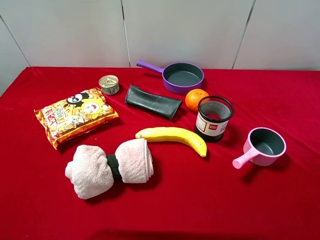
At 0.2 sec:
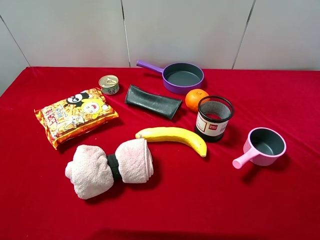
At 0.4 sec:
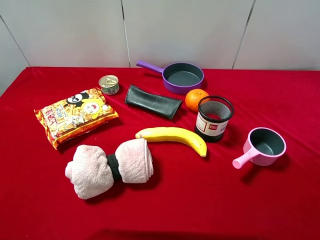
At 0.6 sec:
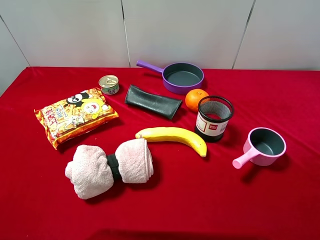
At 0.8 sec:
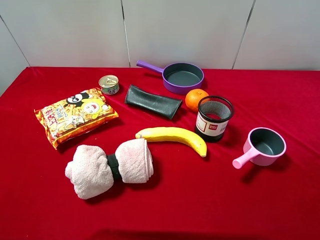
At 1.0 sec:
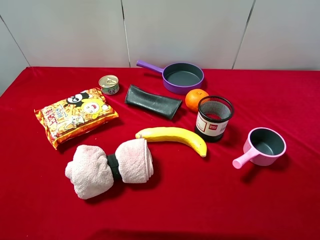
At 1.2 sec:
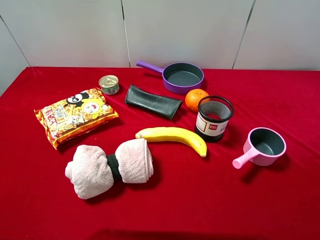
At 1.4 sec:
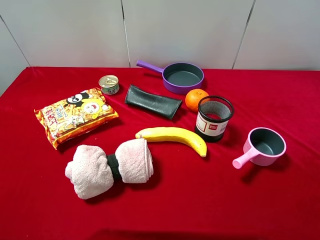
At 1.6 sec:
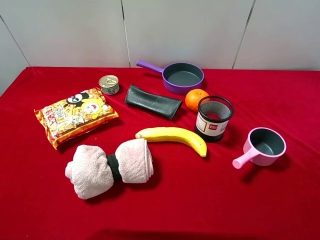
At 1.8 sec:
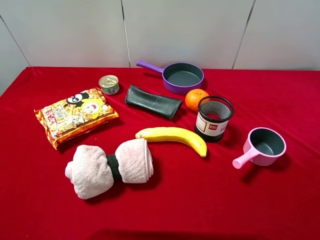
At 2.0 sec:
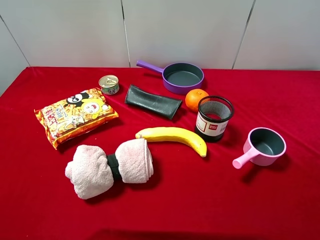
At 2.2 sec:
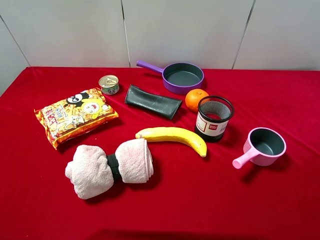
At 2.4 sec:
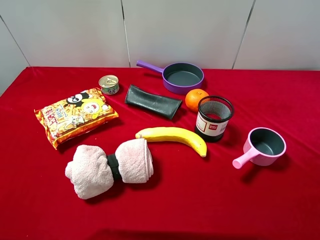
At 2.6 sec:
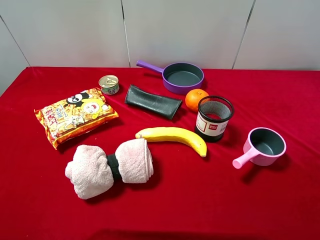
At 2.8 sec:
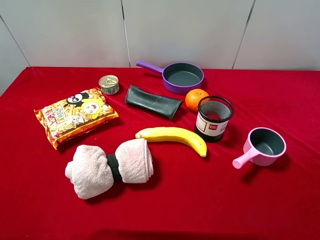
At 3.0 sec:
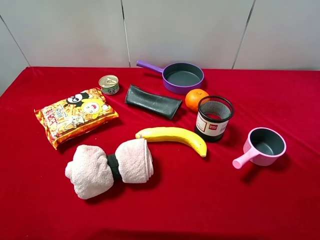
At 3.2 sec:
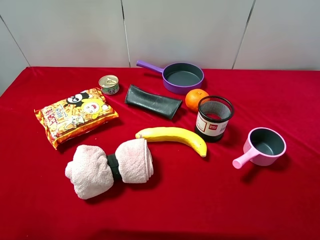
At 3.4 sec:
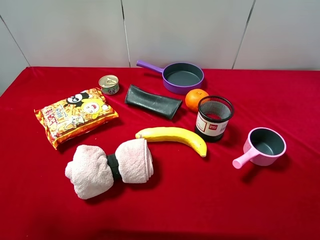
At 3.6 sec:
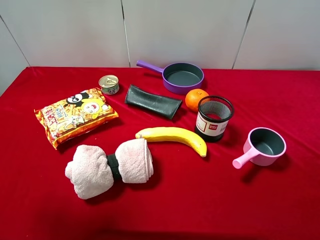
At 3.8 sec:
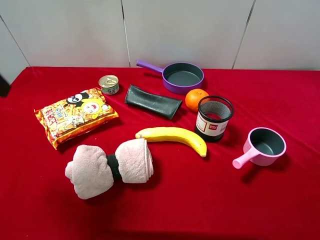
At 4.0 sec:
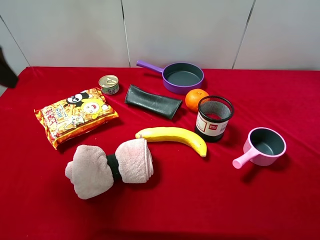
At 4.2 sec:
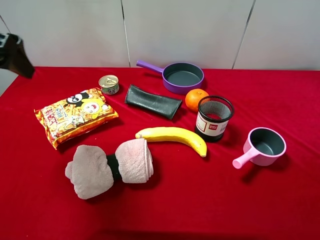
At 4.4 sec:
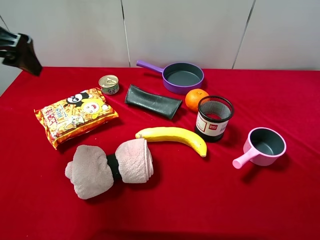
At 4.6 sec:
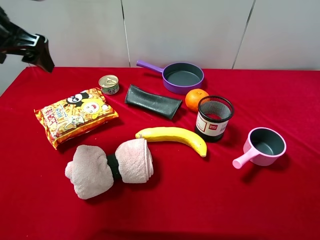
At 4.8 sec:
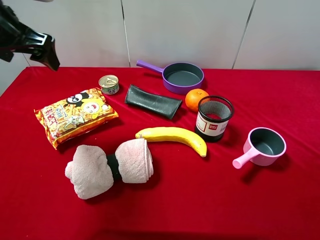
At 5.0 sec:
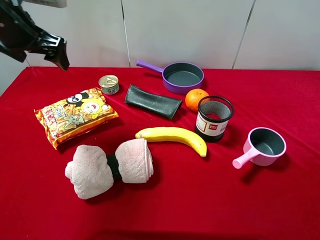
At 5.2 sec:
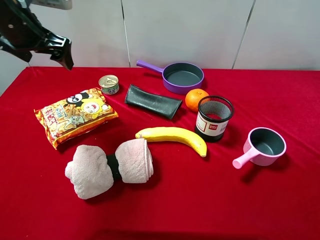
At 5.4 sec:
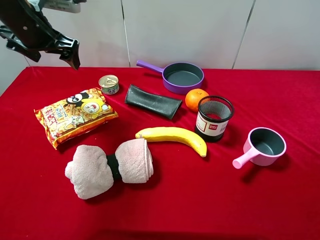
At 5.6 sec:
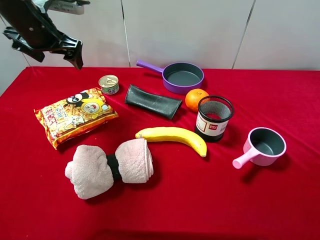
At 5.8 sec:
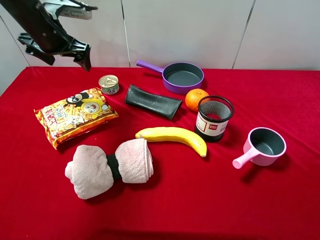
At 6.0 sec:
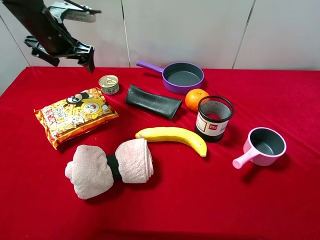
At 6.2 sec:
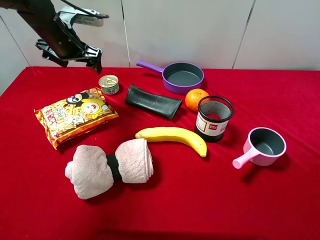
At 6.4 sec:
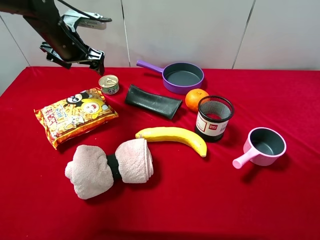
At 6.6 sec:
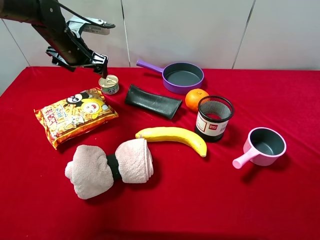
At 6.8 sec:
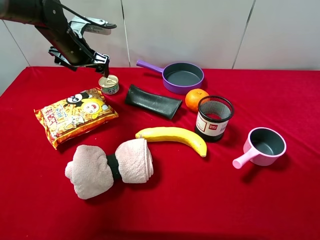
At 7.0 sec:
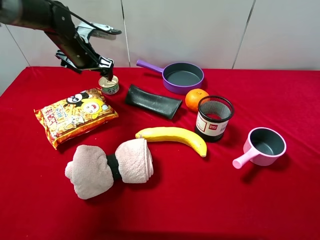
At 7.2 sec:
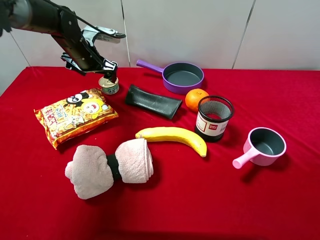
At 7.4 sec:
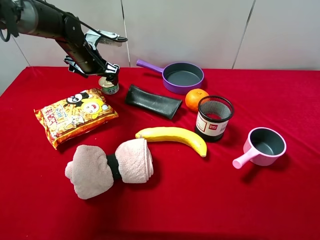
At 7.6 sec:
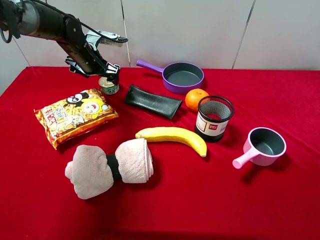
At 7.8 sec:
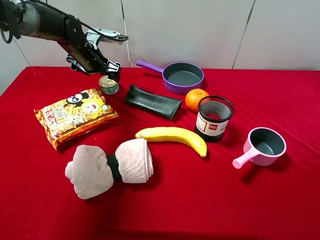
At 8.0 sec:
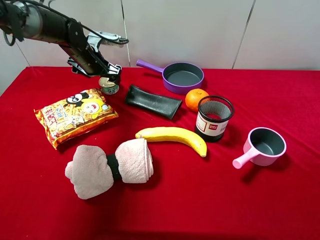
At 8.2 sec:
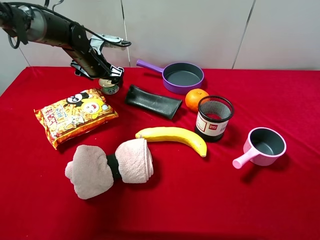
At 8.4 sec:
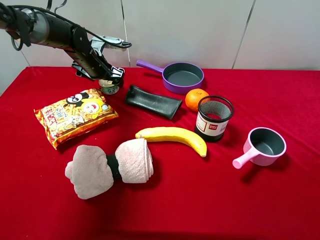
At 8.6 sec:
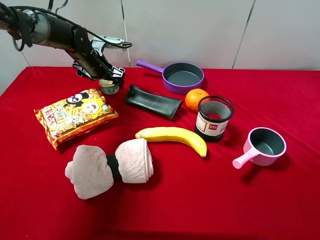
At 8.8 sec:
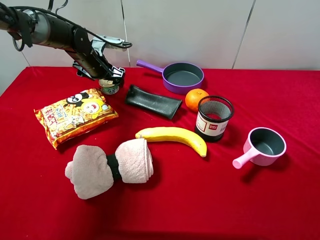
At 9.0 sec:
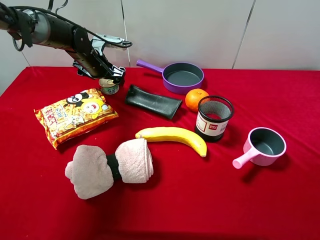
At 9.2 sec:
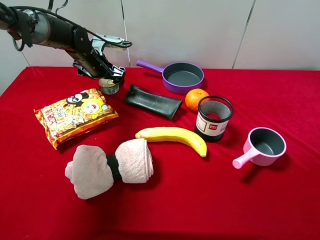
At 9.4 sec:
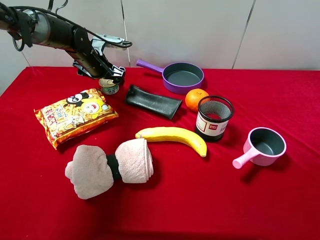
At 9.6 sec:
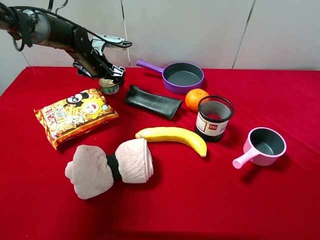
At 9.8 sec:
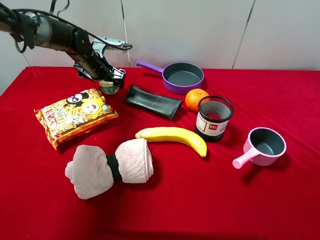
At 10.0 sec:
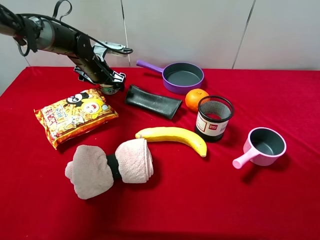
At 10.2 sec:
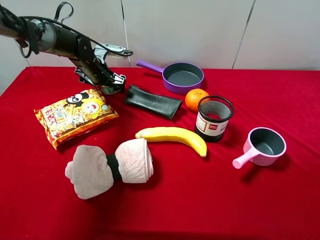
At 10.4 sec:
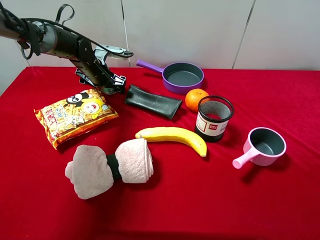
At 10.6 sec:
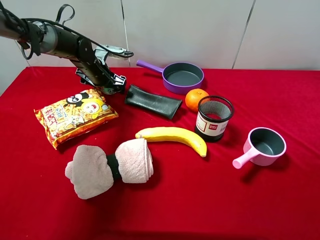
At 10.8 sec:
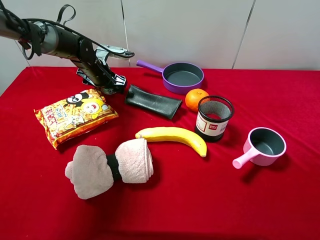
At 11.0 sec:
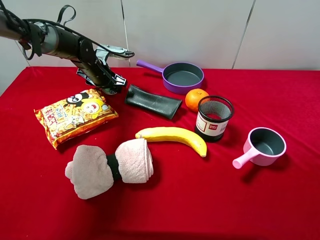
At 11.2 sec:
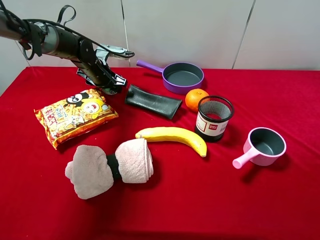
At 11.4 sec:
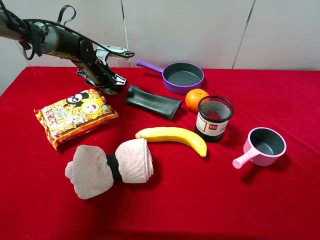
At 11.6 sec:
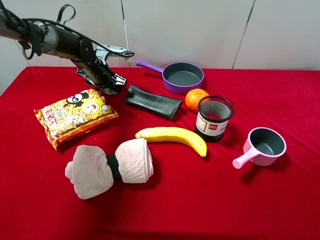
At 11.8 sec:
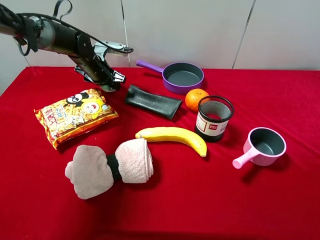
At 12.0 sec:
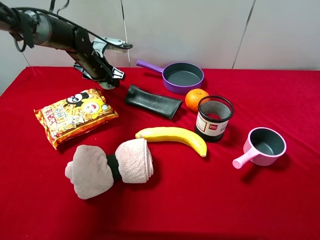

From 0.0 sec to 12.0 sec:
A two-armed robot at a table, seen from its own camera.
Task of the whole recording: pick up an item with a gripper and place it in a random container on the desktop.
From 0.0 sec to 1.6 sec: The two grippers keep their place.
From 3.0 sec to 4.4 sec: The left gripper moves forward, some 20 cm.
From 4.4 sec to 6.0 sec: The left gripper is displaced forward and downward by roughly 20 cm.
From 6.0 sec to 7.6 sec: The left gripper heads downward and forward, covering some 10 cm.
From 7.6 sec to 10.4 sec: The grippers move only a little.
From 10.4 sec to 12.0 sec: The left gripper closes up.

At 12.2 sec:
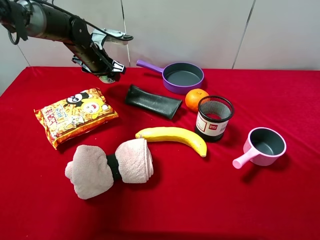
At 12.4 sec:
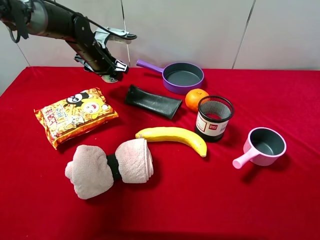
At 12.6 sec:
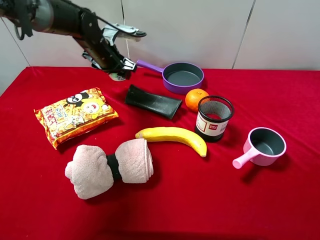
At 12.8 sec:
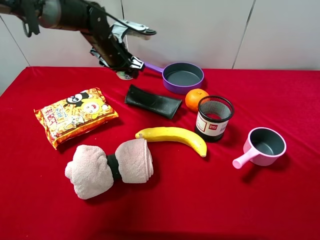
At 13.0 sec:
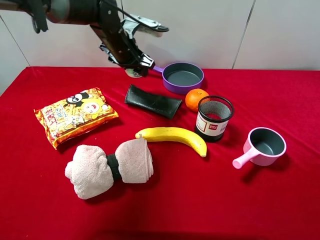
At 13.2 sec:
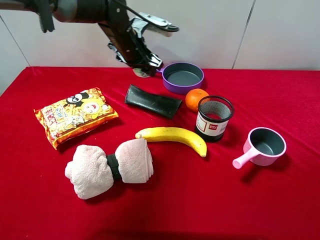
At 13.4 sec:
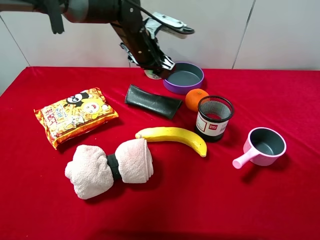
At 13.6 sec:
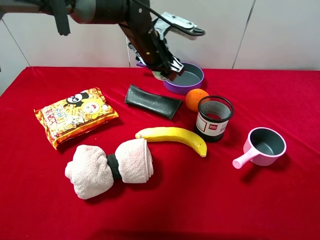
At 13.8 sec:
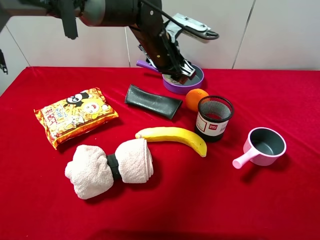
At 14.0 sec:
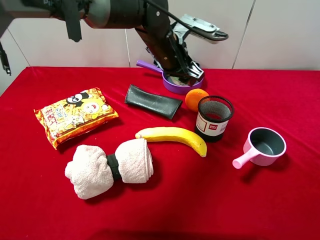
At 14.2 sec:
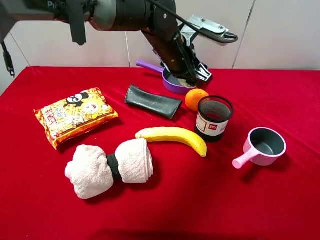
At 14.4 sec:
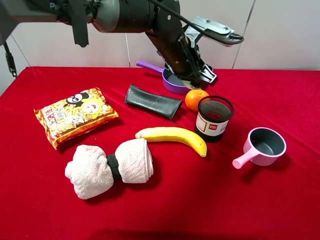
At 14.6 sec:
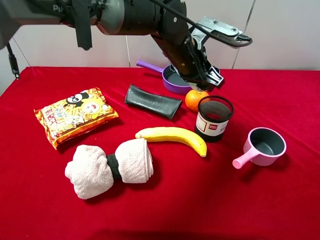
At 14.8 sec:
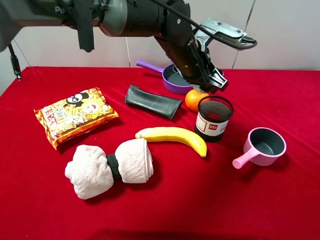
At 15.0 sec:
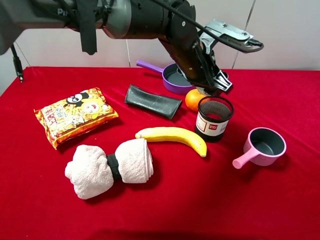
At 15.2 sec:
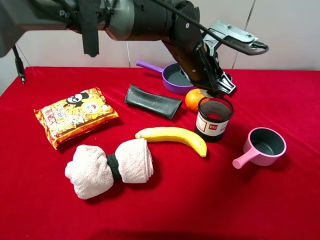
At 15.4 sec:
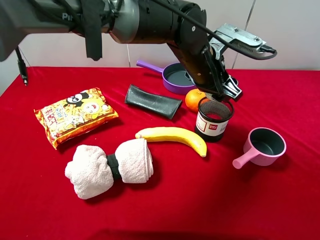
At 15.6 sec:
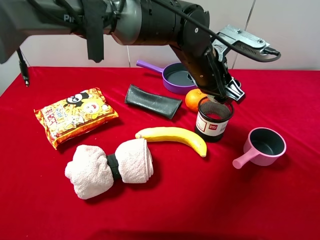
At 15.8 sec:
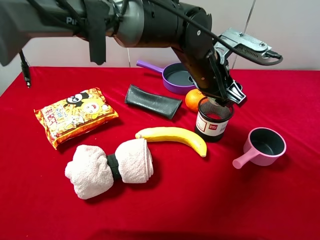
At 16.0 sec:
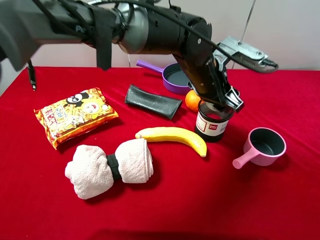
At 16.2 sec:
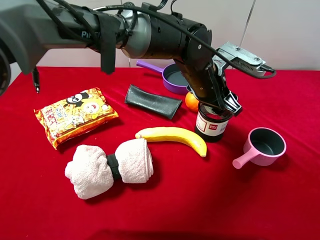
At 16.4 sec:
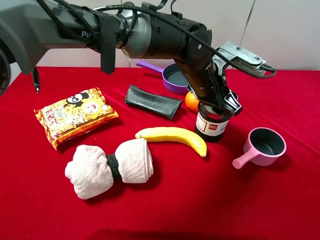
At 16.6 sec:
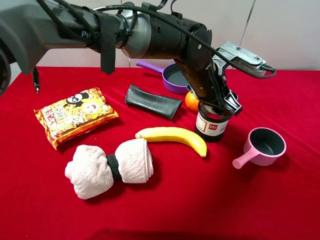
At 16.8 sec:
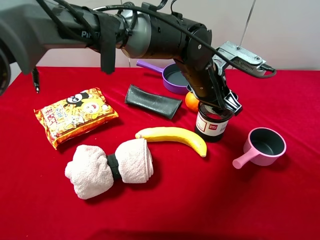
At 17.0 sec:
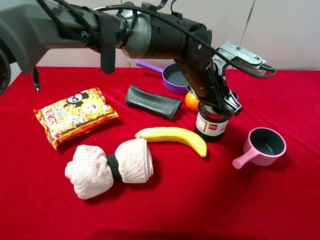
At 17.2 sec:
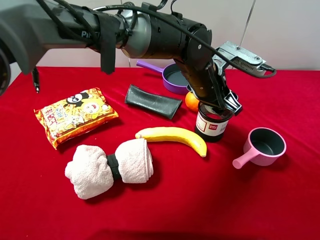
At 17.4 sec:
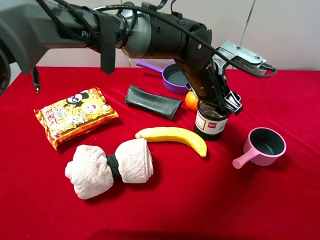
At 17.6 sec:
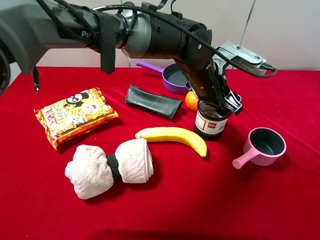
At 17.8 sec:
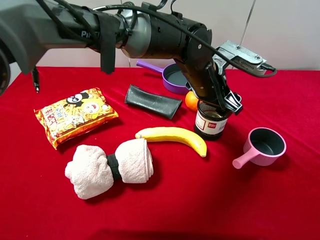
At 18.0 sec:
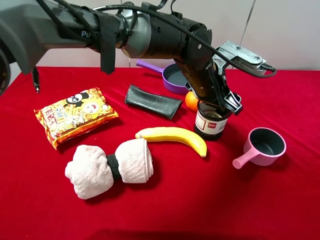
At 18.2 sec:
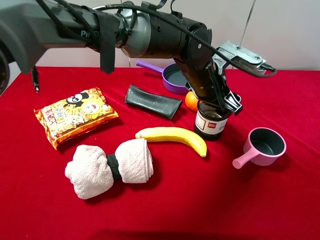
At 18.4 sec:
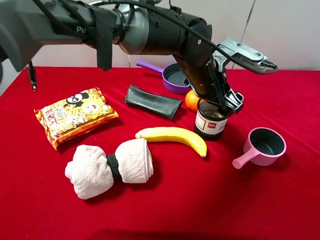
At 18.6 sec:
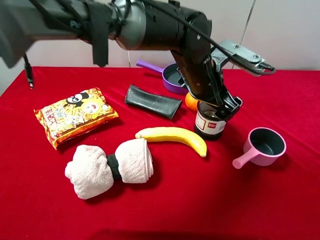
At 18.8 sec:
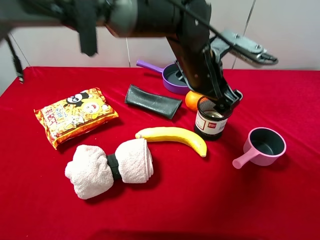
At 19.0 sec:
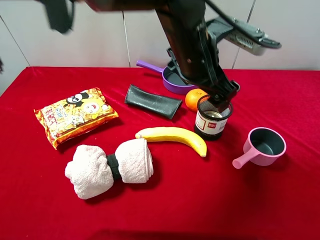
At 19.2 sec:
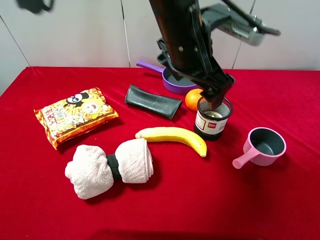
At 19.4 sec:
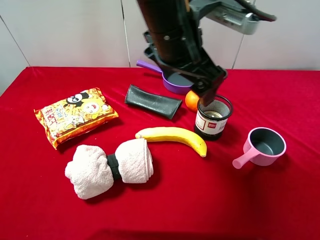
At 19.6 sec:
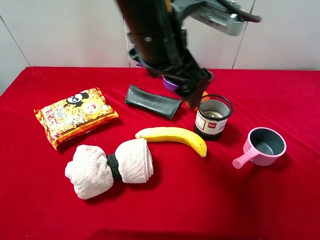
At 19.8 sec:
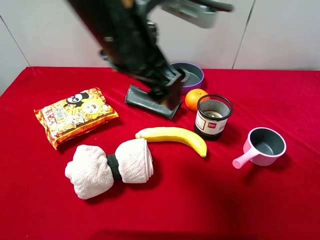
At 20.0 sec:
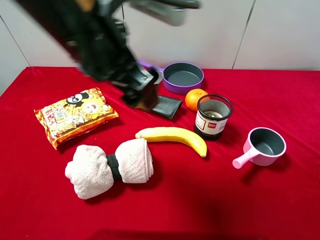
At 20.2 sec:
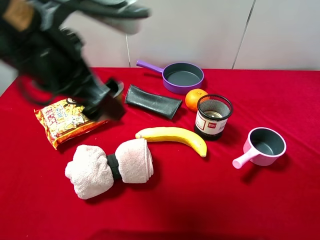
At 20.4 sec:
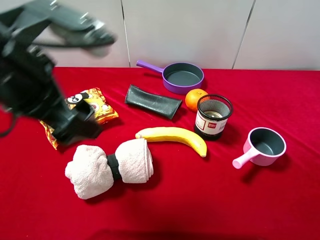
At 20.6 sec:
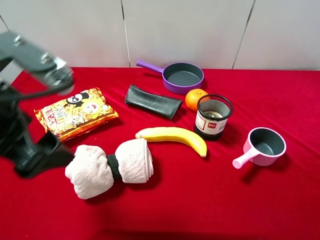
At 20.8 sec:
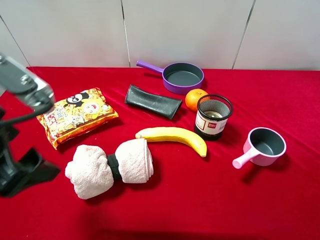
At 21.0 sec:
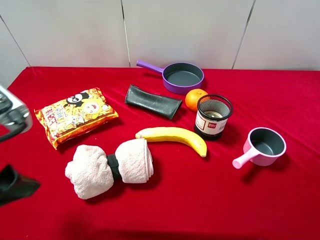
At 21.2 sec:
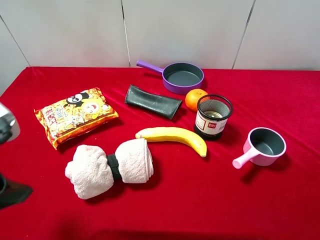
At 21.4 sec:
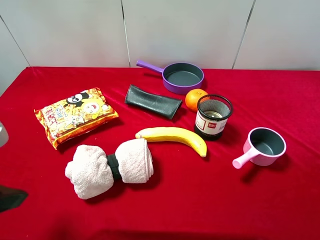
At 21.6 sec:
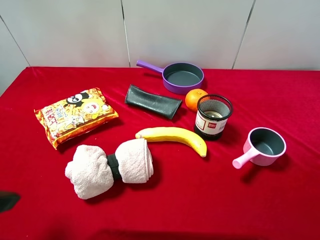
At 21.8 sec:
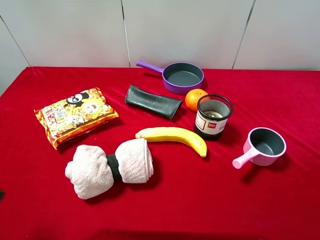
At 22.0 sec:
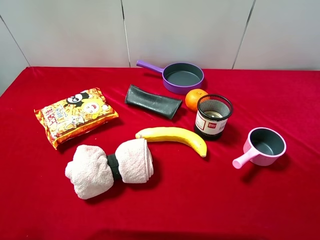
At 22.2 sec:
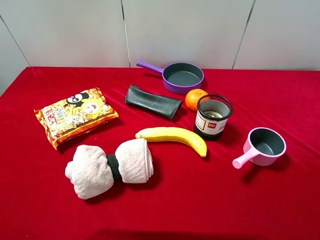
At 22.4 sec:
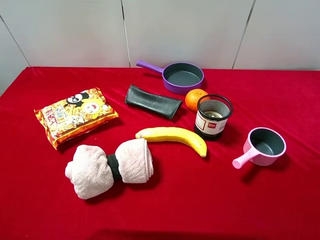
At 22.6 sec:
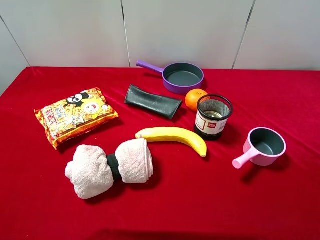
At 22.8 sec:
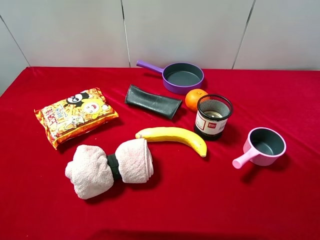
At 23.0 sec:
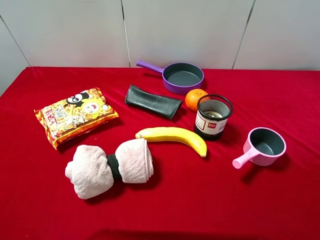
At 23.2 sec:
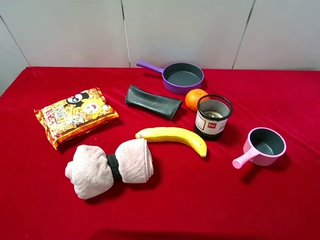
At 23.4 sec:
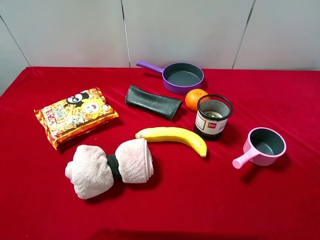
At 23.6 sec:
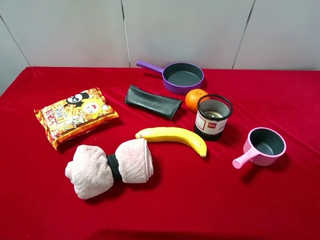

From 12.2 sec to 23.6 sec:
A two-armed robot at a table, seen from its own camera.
Task of the whole recording: pick up an item with a gripper and place it in a random container on the desktop.
From 12.2 sec to 13.6 sec: The left gripper heads to the right, covering roughly 15 cm.
From 13.6 sec to 15.0 sec: The left gripper travels to the right and backward by some 10 cm.
From 15.0 sec to 16.4 sec: The grippers move only a little.
From 16.4 sec to 17.8 sec: Both grippers stay about where they are.
From 17.8 sec to 19.4 sec: The left gripper shifts approximately 15 cm upward, to the left and backward, and opens.
From 19.4 sec to 20.8 sec: The left gripper is displaced to the left and backward by about 25 cm.
From 20.8 sec to 22.2 sec: The left gripper heads to the left and backward, covering some 15 cm.
